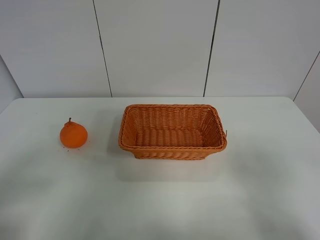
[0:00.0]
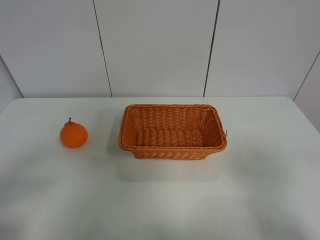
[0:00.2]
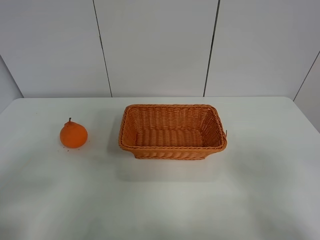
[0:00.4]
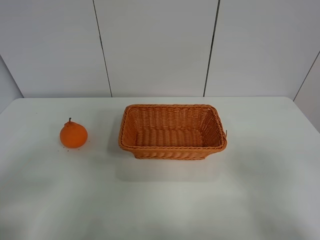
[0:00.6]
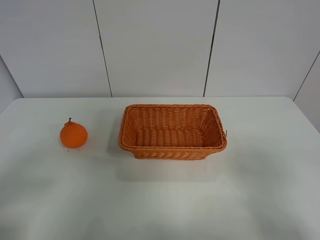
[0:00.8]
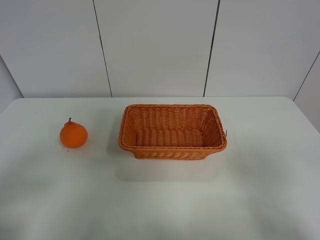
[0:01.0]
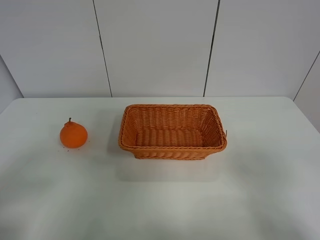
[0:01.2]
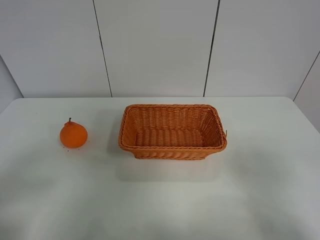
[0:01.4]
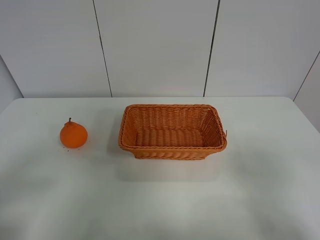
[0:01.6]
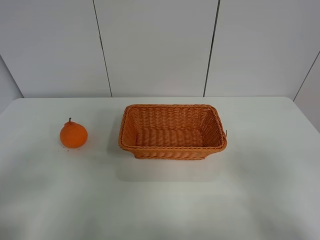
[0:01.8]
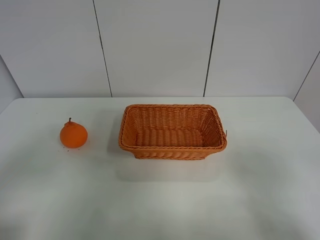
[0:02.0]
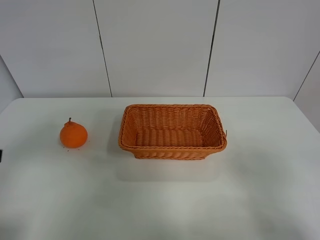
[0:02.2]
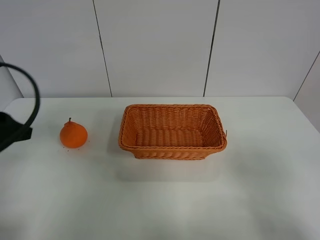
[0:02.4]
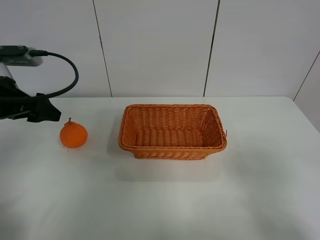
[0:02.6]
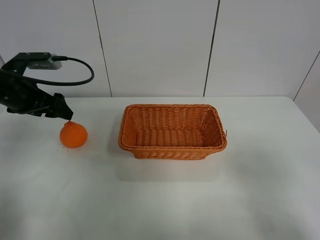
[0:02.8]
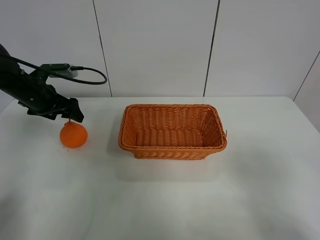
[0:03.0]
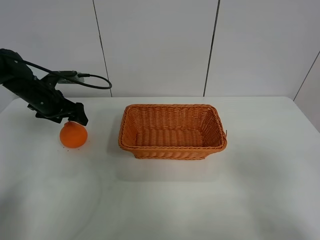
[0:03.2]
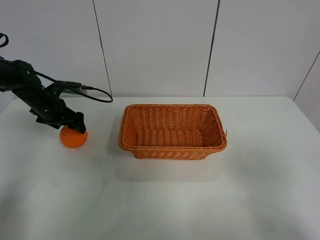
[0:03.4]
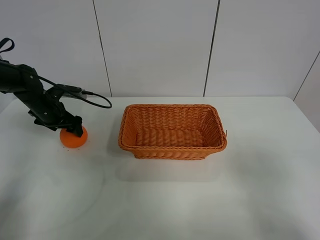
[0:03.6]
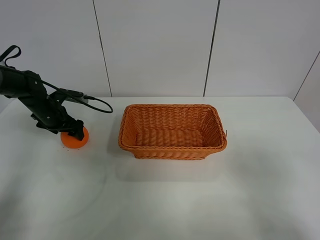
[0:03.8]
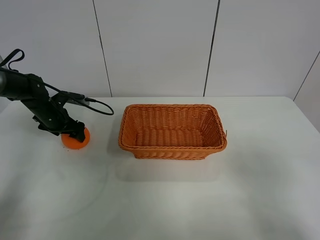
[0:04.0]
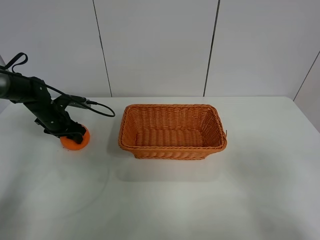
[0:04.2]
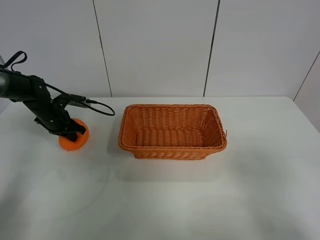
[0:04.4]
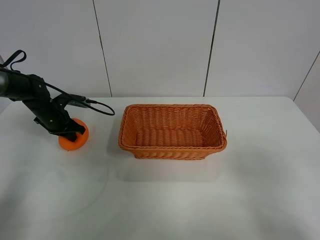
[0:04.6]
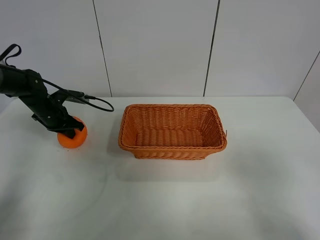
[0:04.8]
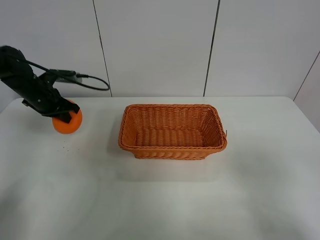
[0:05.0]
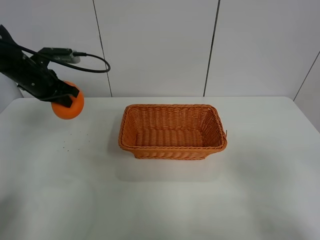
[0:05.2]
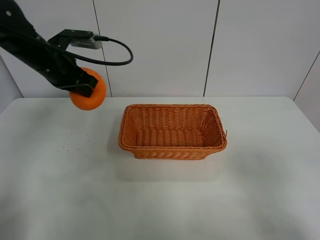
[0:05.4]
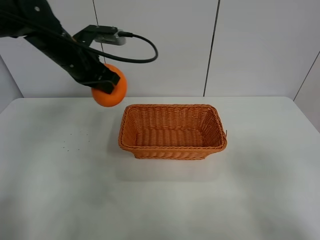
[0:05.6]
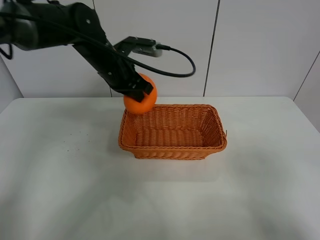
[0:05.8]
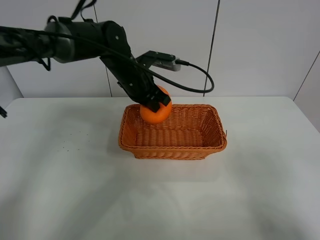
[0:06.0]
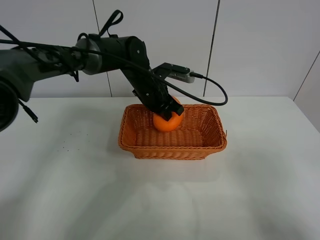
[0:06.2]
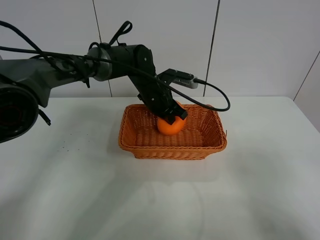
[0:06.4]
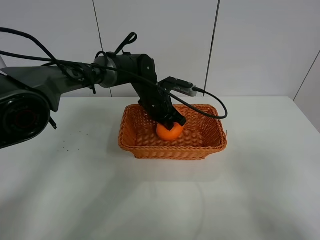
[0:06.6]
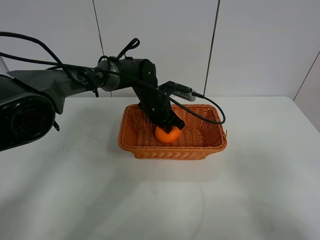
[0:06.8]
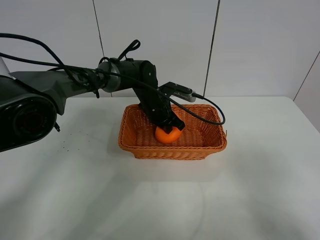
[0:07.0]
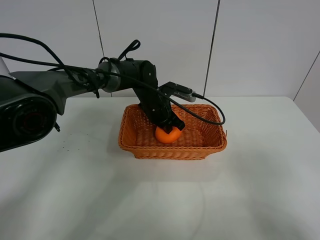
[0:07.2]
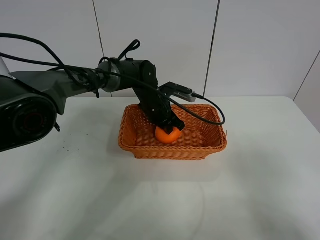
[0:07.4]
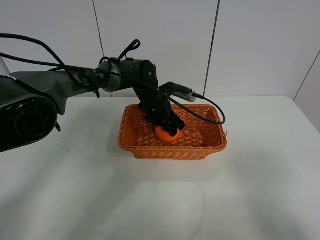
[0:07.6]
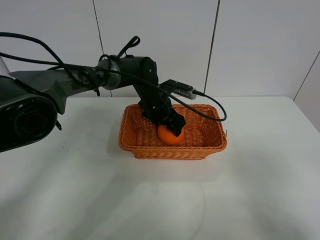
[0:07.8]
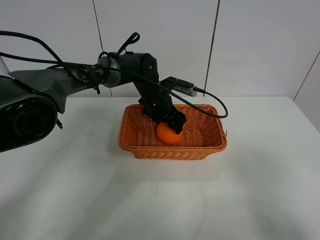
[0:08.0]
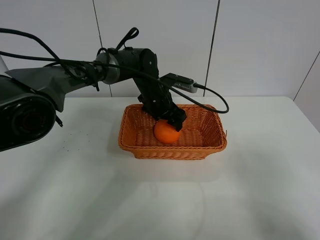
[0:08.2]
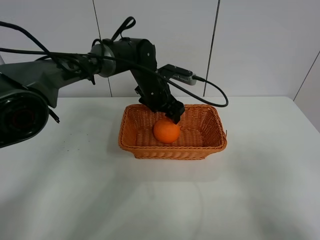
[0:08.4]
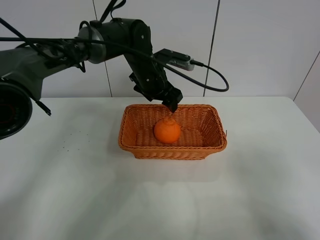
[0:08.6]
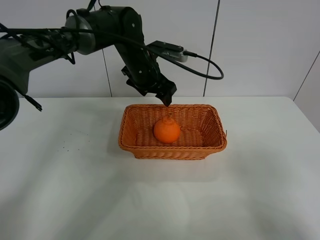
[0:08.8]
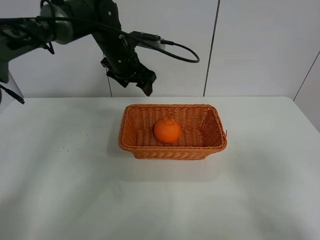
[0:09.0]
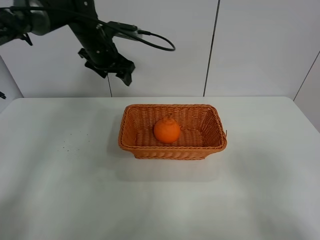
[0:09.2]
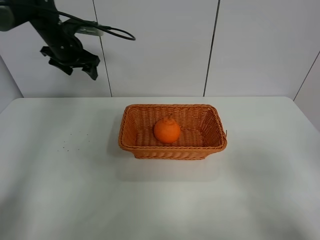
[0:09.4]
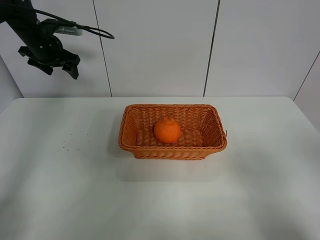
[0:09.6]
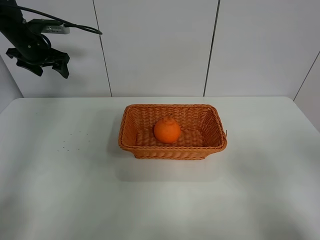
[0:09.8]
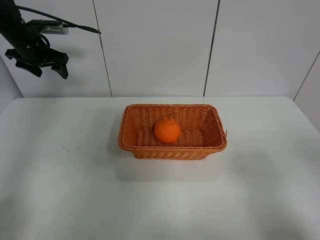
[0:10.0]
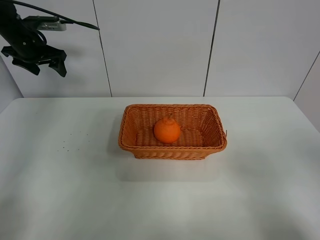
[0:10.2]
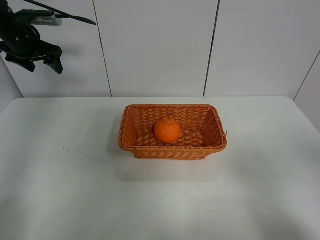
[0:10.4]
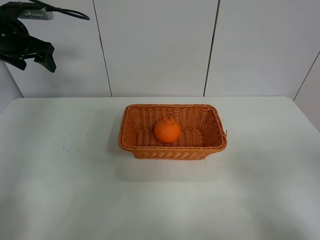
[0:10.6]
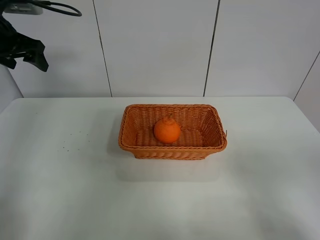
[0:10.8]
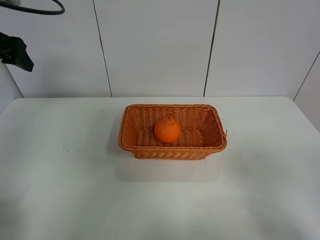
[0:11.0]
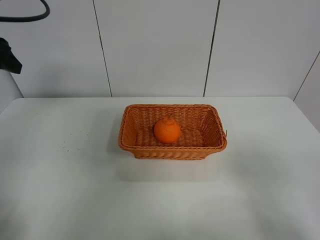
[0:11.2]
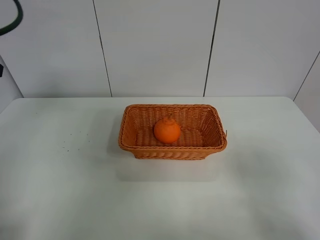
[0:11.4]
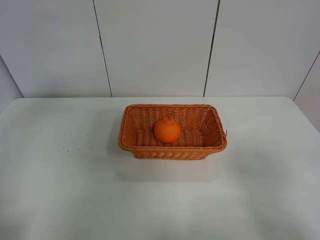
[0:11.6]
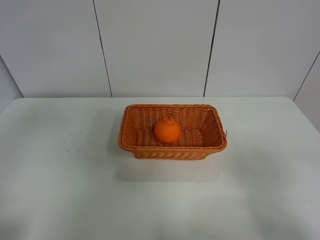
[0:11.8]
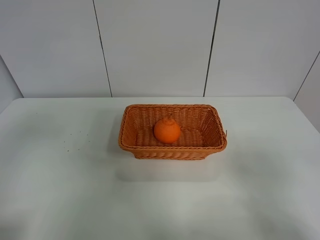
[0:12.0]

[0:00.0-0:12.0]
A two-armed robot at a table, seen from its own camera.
Task of the whole recording: left gripper grabs oranges and puts them in the basket.
Step, 0:00.0 to 0:04.4: Grasp the orange with left gripper.
Step, 0:04.6 to 0:09.2: Place the orange in the basket with left gripper.
0:00.0 to 0:01.6: The two grippers keep their place.
0:01.6 to 0:03.0: The left gripper travels forward by approximately 40 cm.
0:03.0 to 0:04.4: The left gripper shifts roughly 10 cm downward, and closes up.
0:04.4 to 0:06.0: The left gripper moves to the right and upward, approximately 30 cm.
0:06.0 to 0:07.6: The left gripper is displaced downward by some 10 cm, and opens its fingers.
0:07.6 to 0:09.0: The left gripper goes some 15 cm upward and to the left.
0:09.0 to 0:10.4: The left gripper moves to the left, about 20 cm.
0:10.4 to 0:12.0: The left gripper goes roughly 40 cm backward.

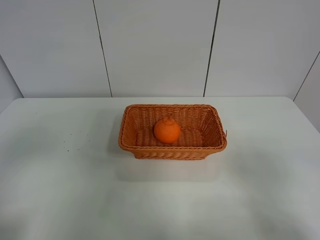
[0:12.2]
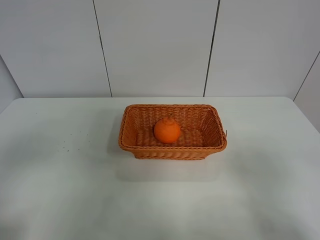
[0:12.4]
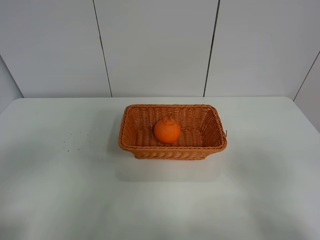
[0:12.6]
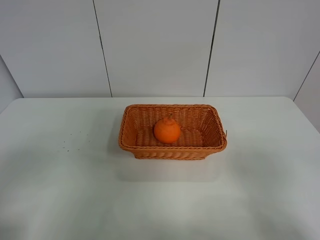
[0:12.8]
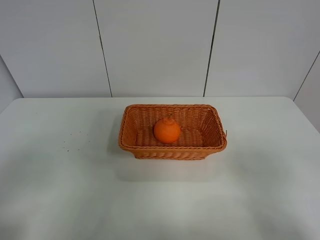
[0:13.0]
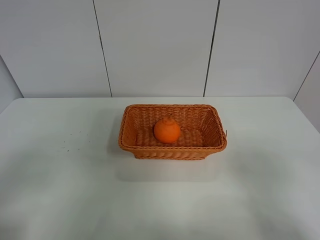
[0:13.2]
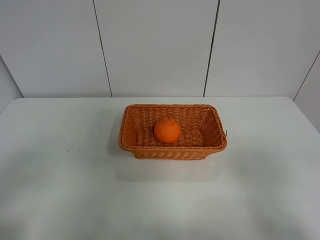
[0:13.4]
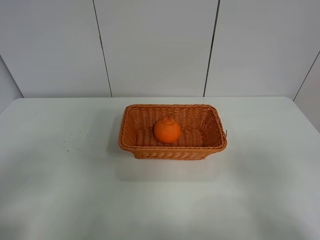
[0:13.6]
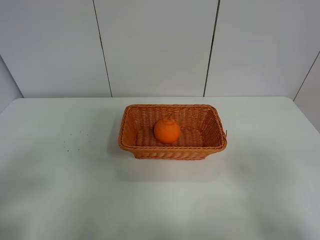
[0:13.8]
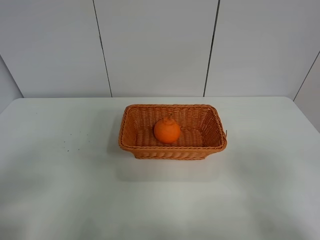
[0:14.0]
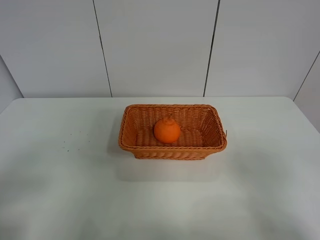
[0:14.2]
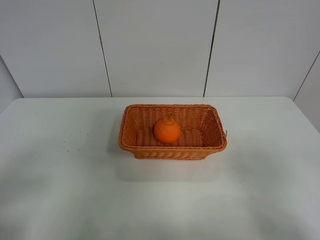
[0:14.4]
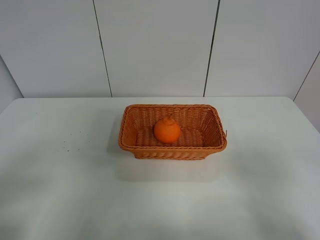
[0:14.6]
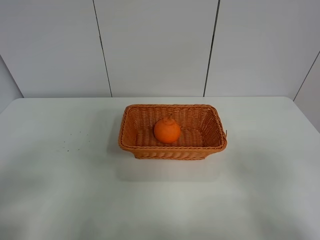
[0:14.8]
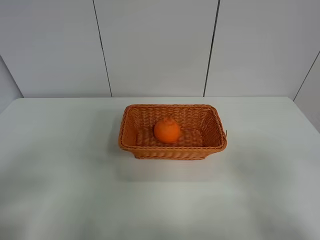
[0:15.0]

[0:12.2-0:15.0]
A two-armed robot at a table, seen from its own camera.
Task of the whole recording: left gripper grabs oranges and puts them in the basket.
0:13.6 to 0:15.0: Both grippers stay about where they are.
